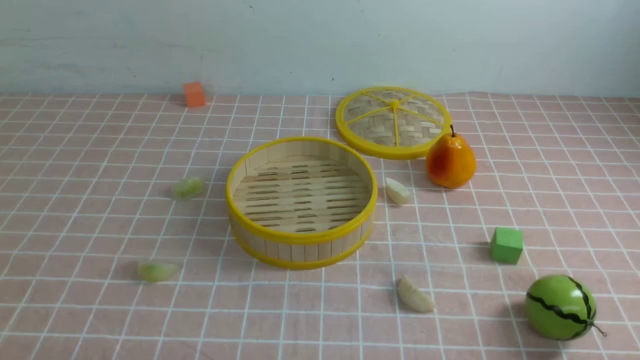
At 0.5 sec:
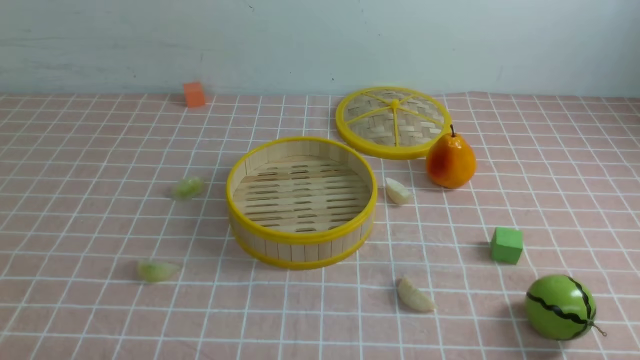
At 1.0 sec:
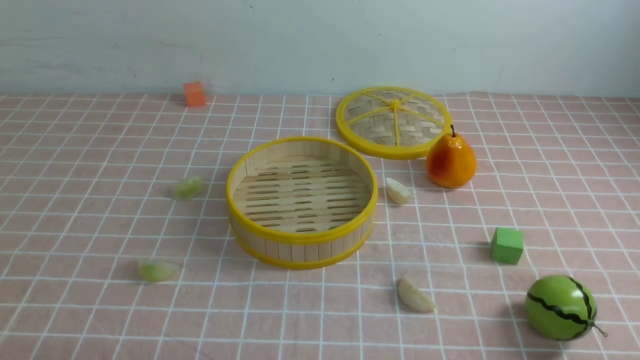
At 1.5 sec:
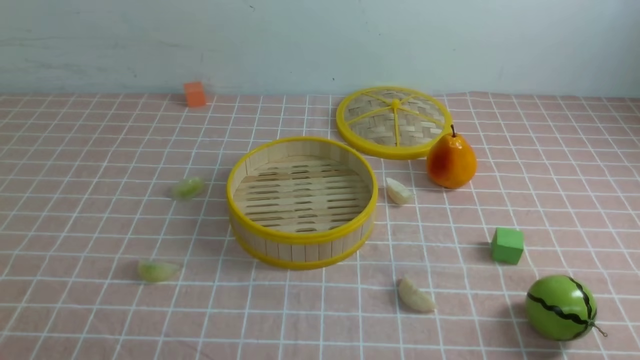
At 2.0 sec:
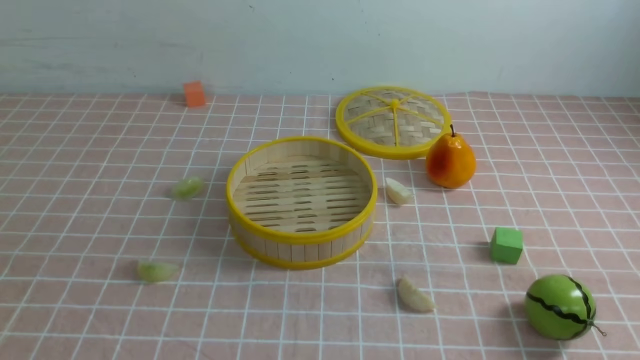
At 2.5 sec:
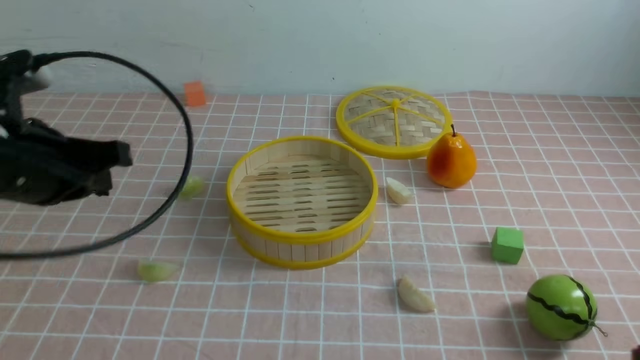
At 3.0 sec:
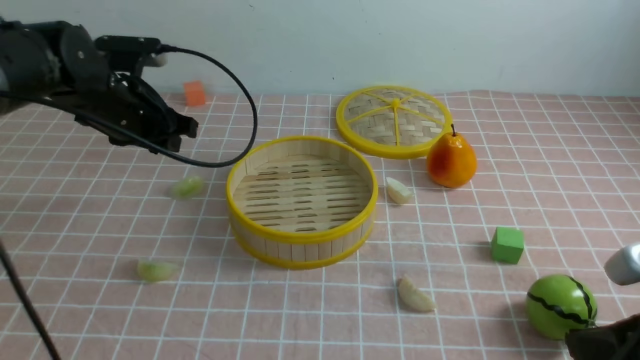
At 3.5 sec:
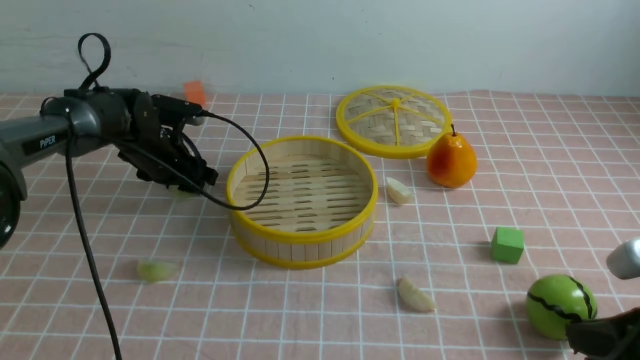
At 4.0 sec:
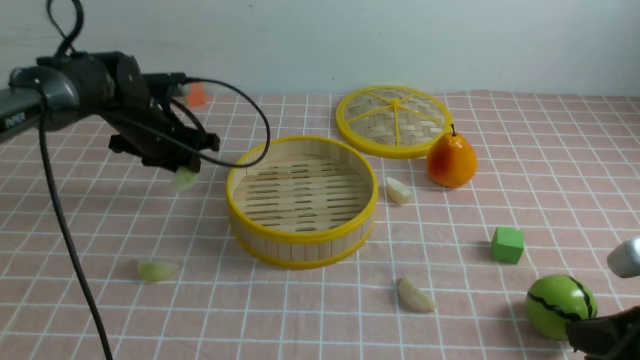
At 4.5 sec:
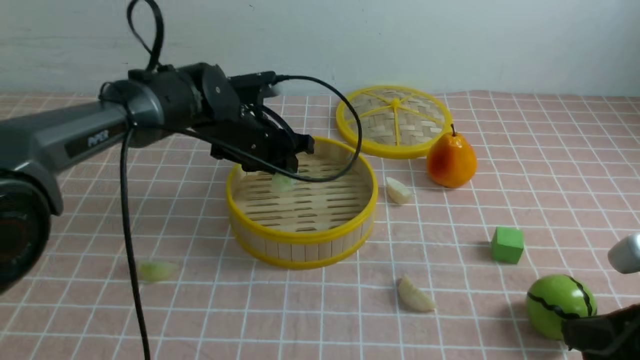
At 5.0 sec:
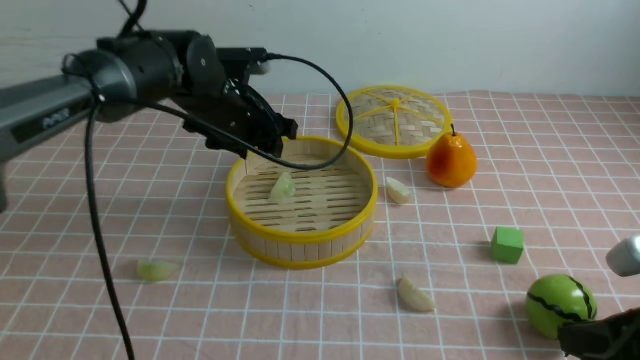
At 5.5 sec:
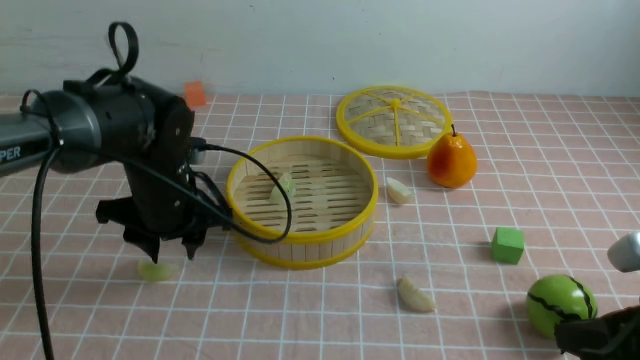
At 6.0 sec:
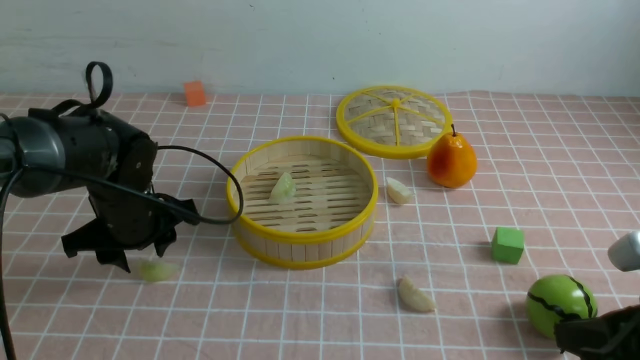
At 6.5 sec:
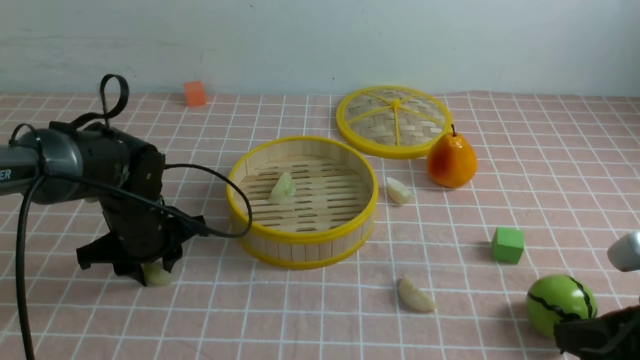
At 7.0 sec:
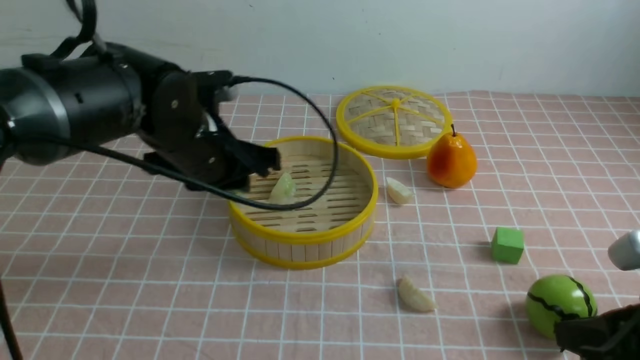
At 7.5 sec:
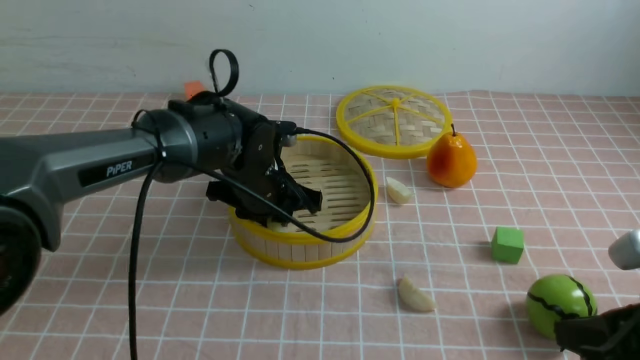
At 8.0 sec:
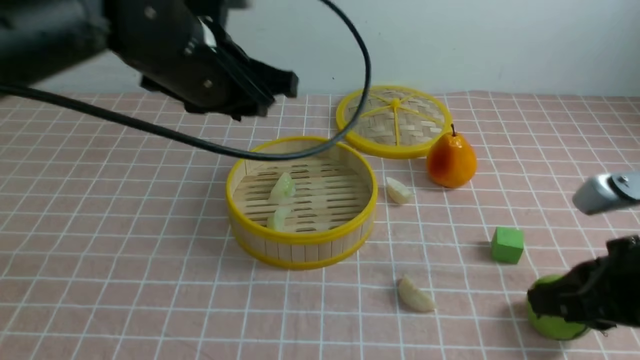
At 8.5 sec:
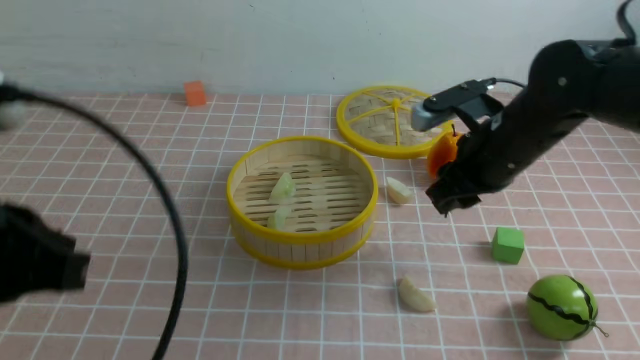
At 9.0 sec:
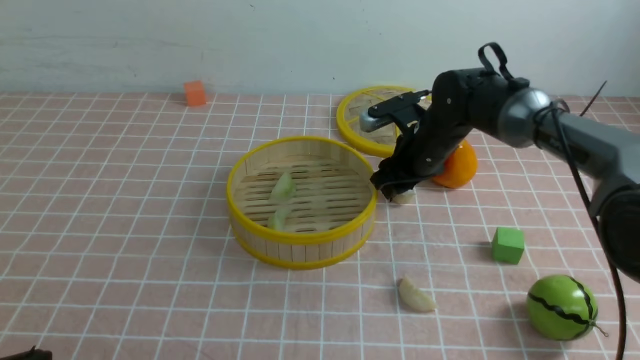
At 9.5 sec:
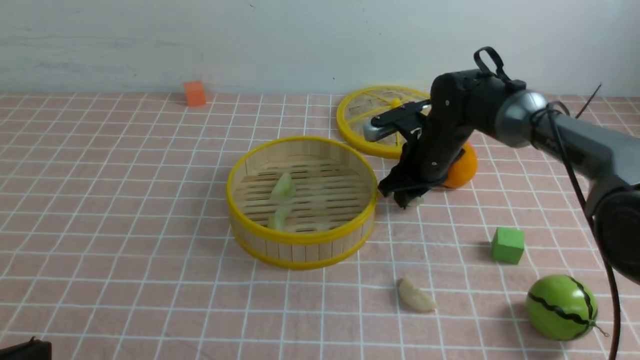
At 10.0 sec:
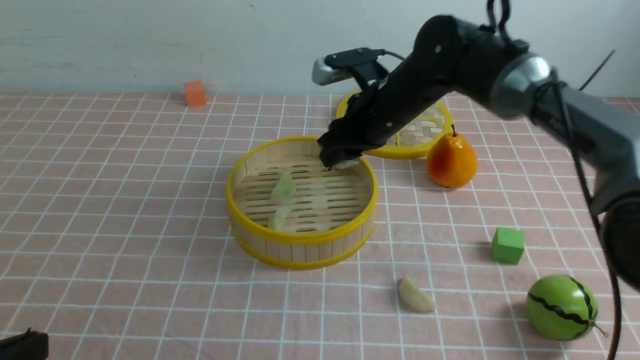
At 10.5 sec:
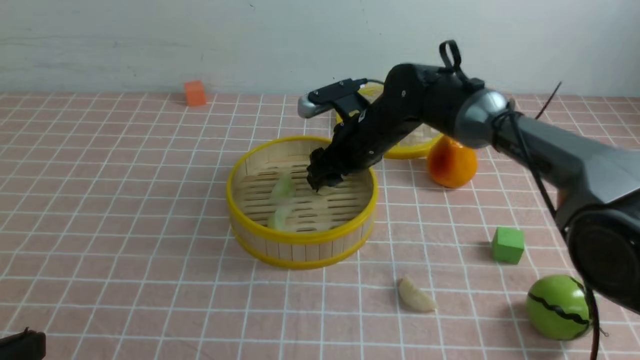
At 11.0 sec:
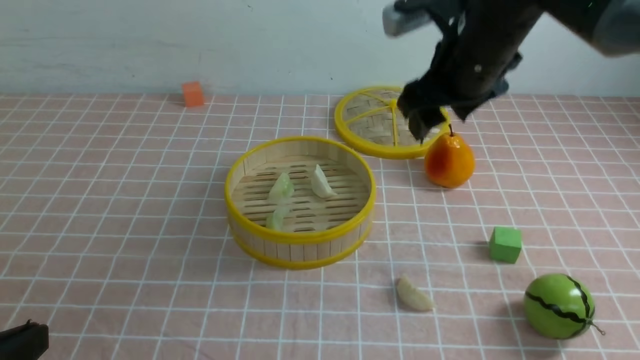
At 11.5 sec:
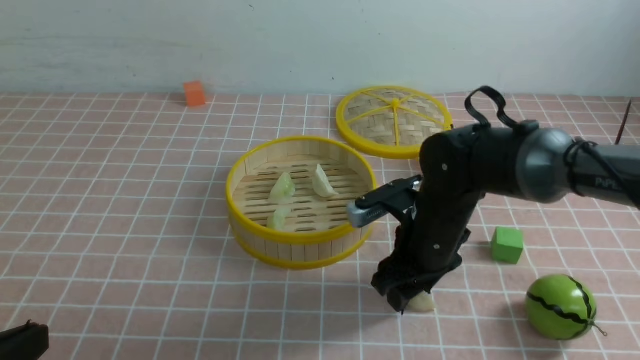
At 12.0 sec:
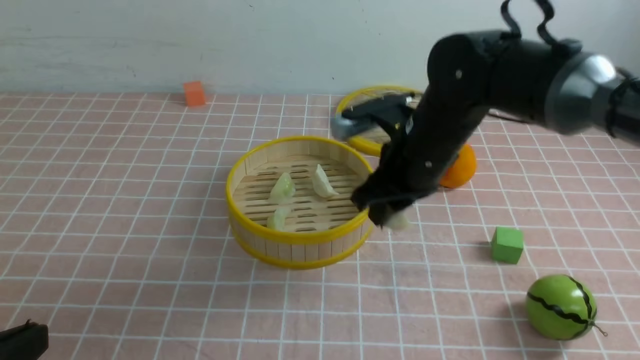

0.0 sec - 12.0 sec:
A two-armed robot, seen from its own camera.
Task of the whole recording: put the dumplings into the steamer on the table with the pink tablecloth.
Step, 0.0 sec - 3.5 sec: use the left arm to grab a dumpling.
Step, 4.0 sec - 4.5 sec: use the left arm to put the dumpling into the steamer.
Step, 5.0 sec - 6.5 sec: use the left arm to grab a dumpling.
Step, 7.0 sec - 7.5 sec: use the left arm to put the dumpling into the steamer.
Step, 8.0 sec - 9.5 sec: use the right arm to grab a dumpling.
Step, 11.0 sec - 11.5 sec: use the right arm to grab a dumpling.
2.0 sec - 4.0 sec: The left gripper is displaced forward by about 40 cm, and opens its fingers. Meanwhile the right gripper is displaced forward and downward by about 10 cm.
4.0 sec - 6.0 sec: The left gripper heads backward, covering roughly 10 cm, and opens its fingers.
6.0 sec - 8.0 sec: The left gripper moves up and down over roughly 20 cm, changing direction 2 times, and closes up; the right gripper goes some 5 cm forward.
8.0 sec - 10.0 sec: The left gripper goes approximately 30 cm backward, to the left and downward, and closes up. Meanwhile the right gripper moves forward and to the left, about 30 cm.
10.0 sec - 12.0 sec: The right gripper swings up and down, roughly 15 cm each way, with 2 reversals, and opens, then closes once more.

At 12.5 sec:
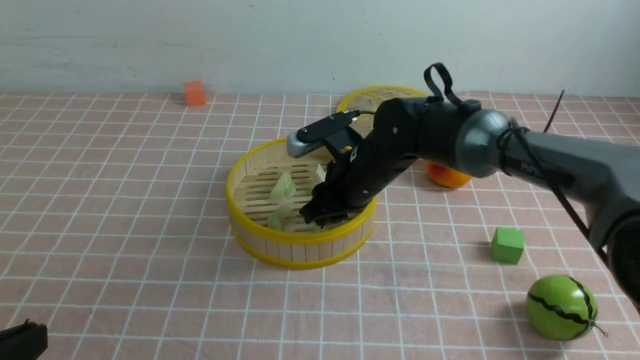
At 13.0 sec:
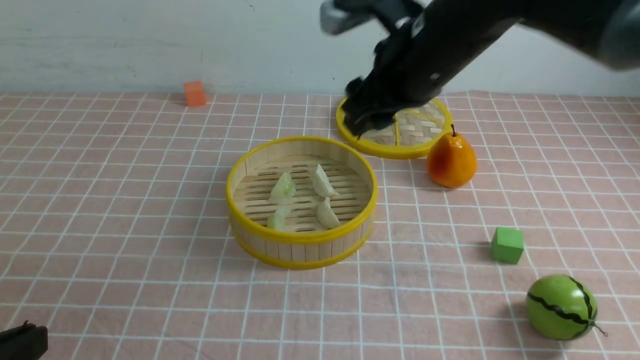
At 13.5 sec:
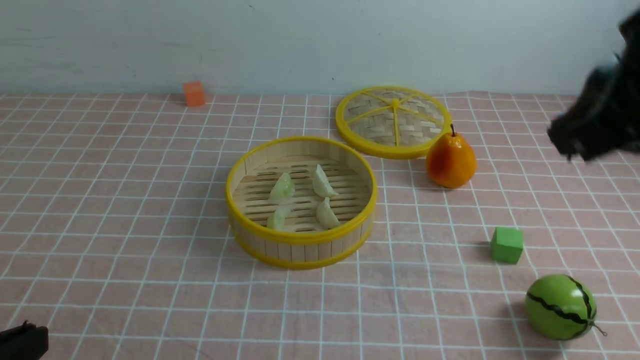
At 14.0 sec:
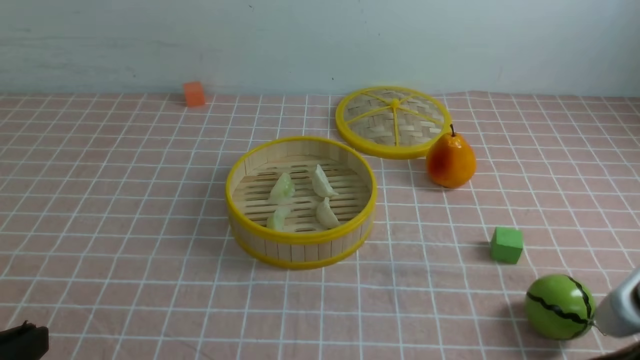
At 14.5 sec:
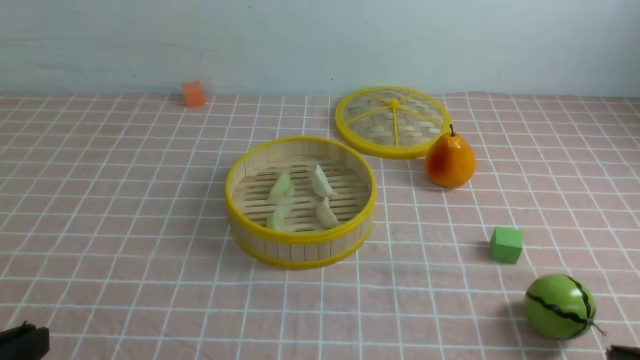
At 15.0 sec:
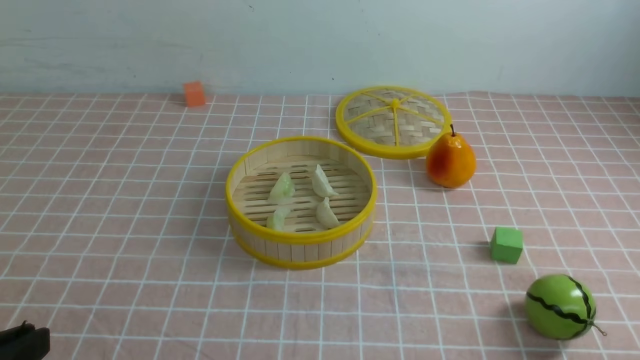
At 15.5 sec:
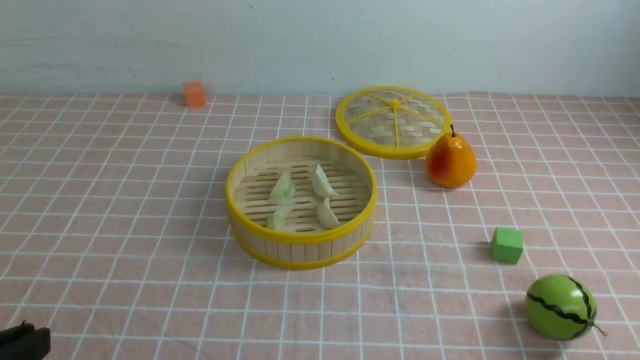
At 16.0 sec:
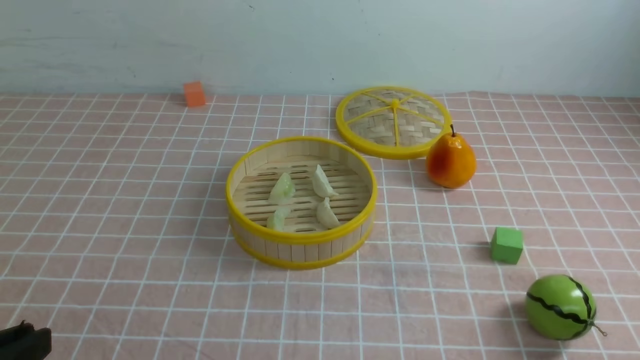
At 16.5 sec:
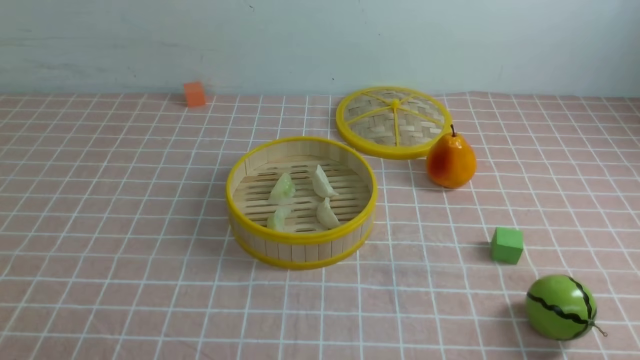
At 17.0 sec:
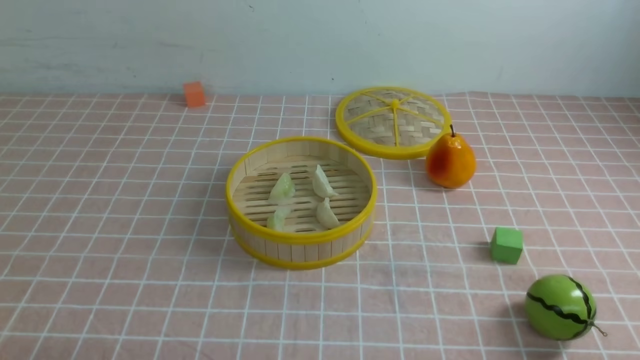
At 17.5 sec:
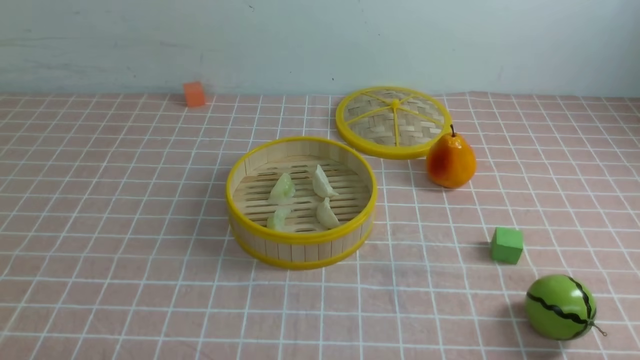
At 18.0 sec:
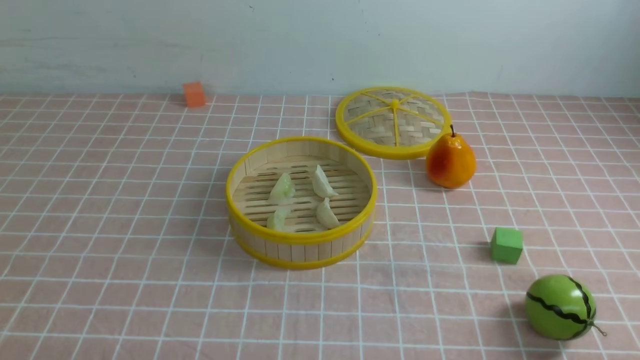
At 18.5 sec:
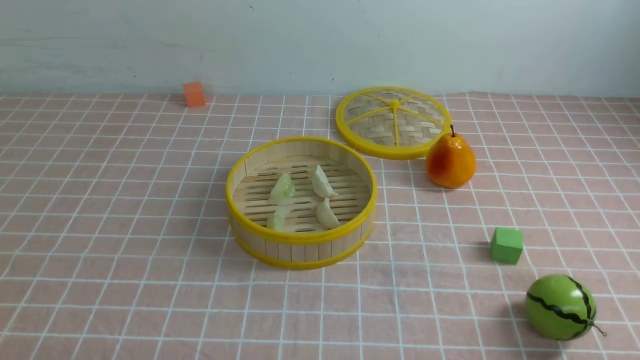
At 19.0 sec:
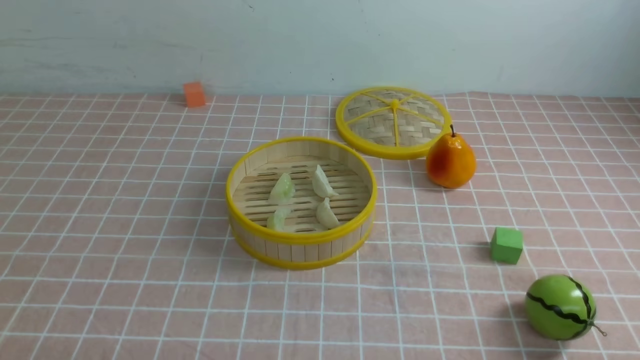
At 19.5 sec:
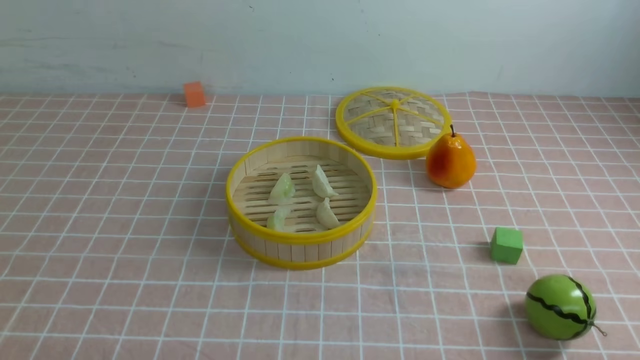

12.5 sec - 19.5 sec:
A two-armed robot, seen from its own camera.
Task of the whole recording: put the dumplings into the steamer on the table with the pink tablecloth.
12.5 sec - 14.5 sec: The right gripper is displaced backward and to the right by roughly 40 cm, and closes.
16.0 sec - 17.5 sec: The left gripper moves downward, some 10 cm.
17.5 sec - 19.5 sec: The two grippers keep their place.
